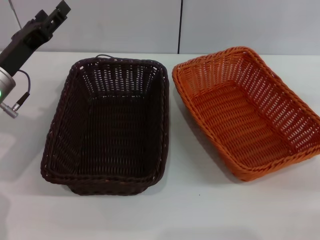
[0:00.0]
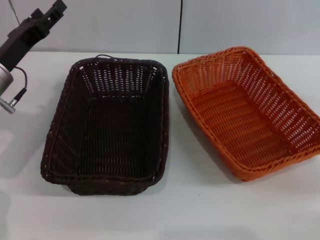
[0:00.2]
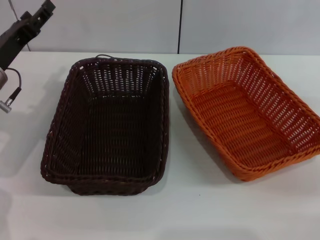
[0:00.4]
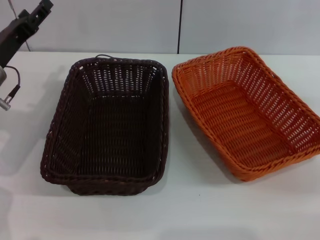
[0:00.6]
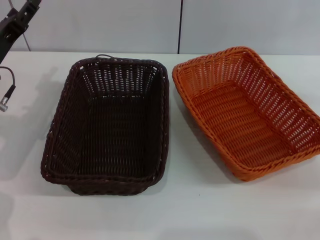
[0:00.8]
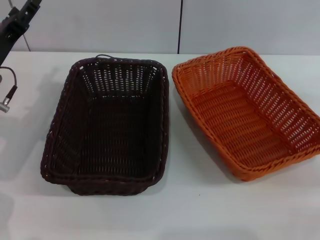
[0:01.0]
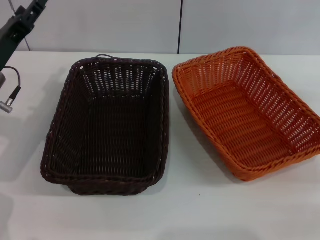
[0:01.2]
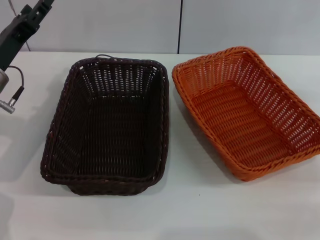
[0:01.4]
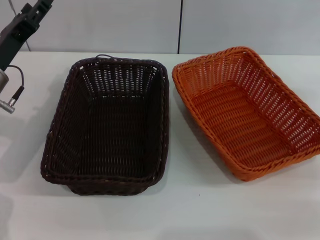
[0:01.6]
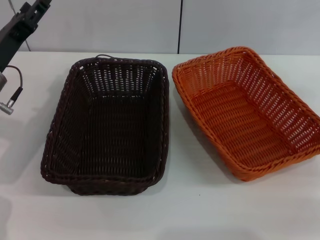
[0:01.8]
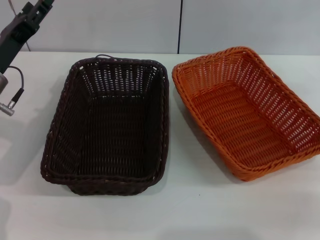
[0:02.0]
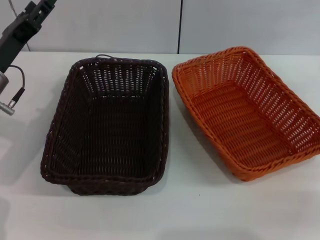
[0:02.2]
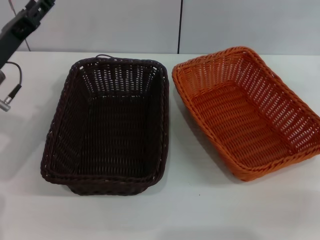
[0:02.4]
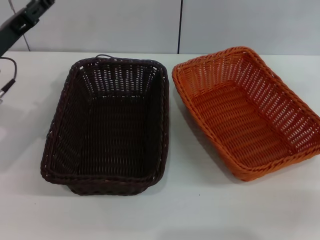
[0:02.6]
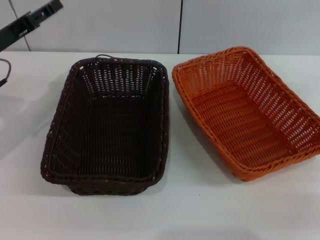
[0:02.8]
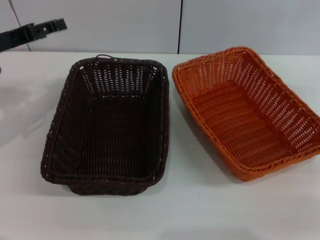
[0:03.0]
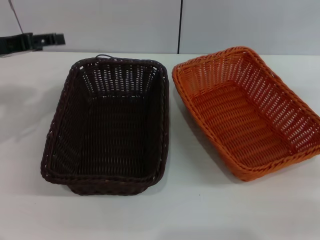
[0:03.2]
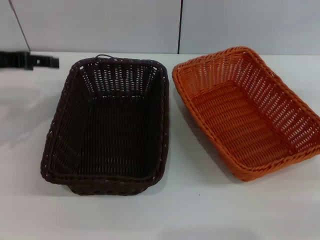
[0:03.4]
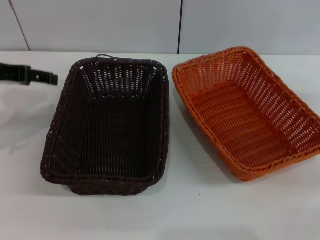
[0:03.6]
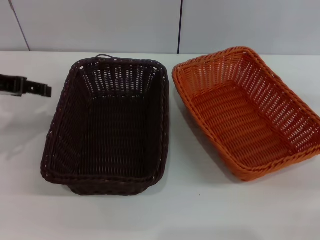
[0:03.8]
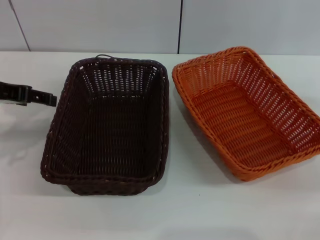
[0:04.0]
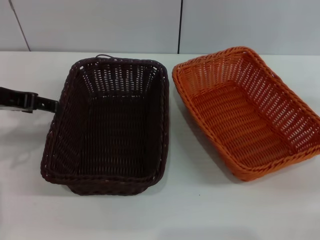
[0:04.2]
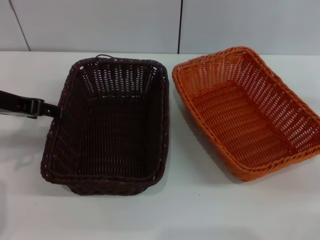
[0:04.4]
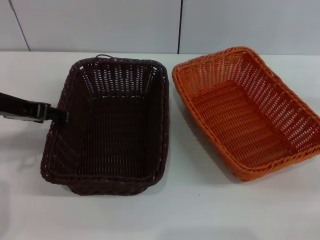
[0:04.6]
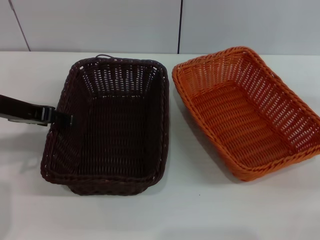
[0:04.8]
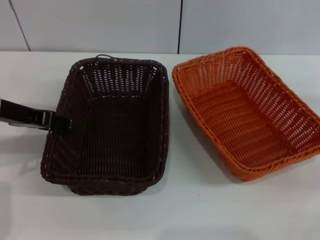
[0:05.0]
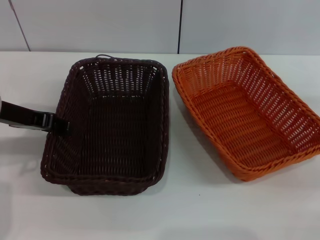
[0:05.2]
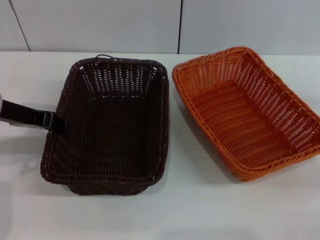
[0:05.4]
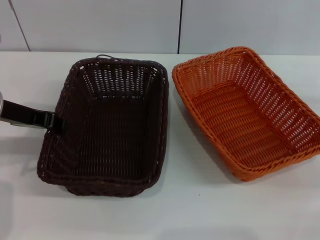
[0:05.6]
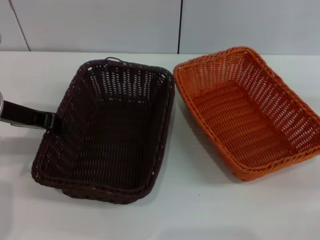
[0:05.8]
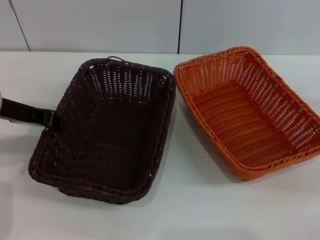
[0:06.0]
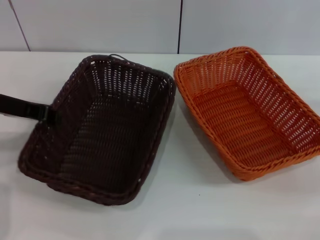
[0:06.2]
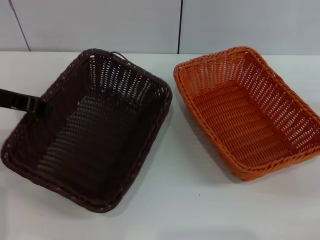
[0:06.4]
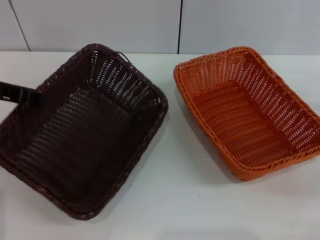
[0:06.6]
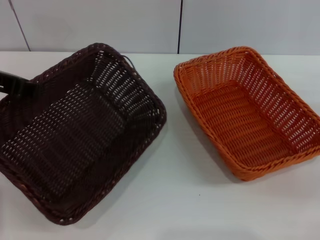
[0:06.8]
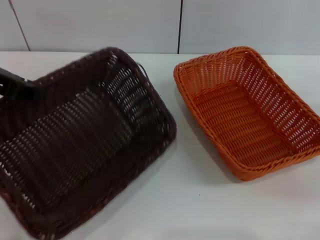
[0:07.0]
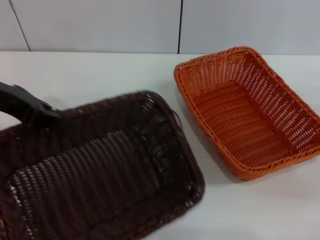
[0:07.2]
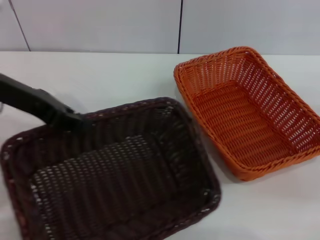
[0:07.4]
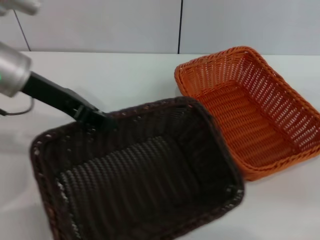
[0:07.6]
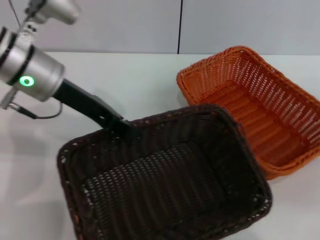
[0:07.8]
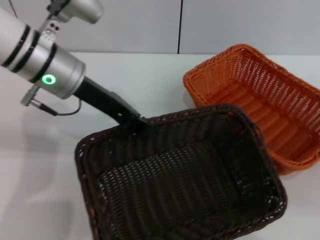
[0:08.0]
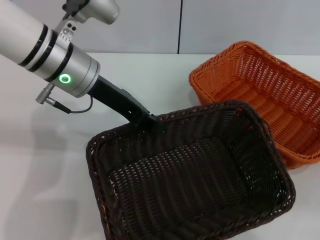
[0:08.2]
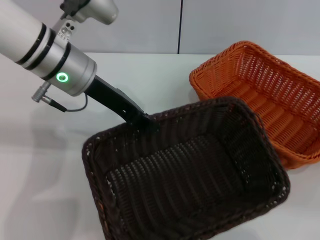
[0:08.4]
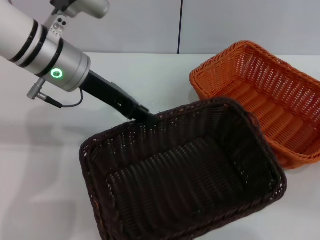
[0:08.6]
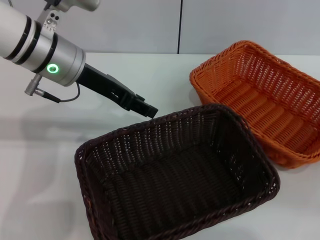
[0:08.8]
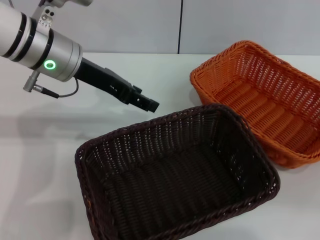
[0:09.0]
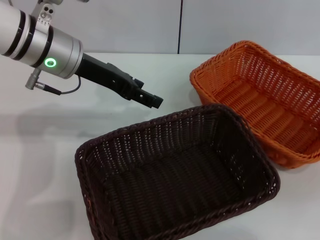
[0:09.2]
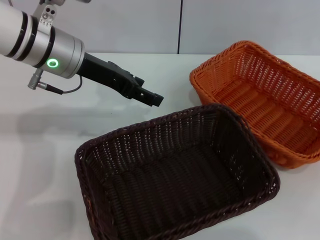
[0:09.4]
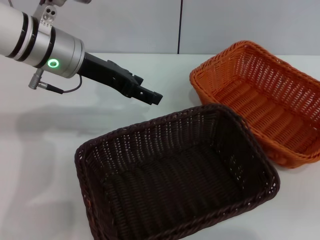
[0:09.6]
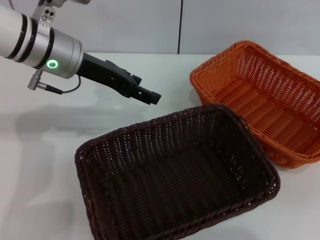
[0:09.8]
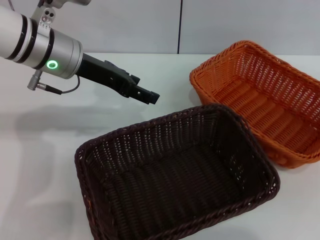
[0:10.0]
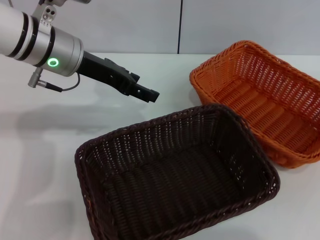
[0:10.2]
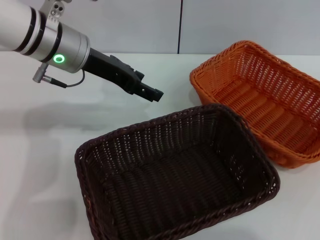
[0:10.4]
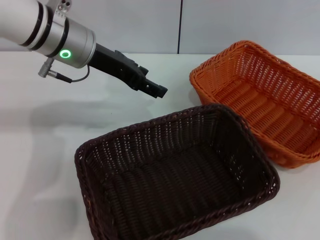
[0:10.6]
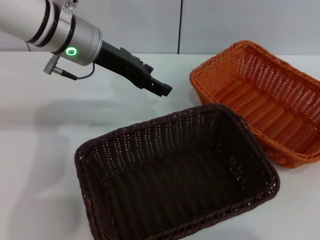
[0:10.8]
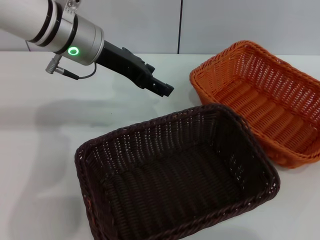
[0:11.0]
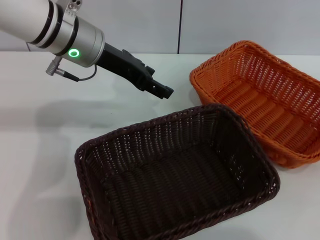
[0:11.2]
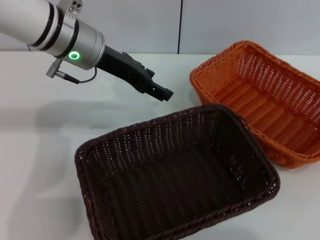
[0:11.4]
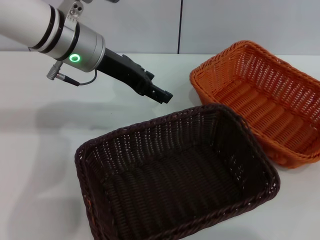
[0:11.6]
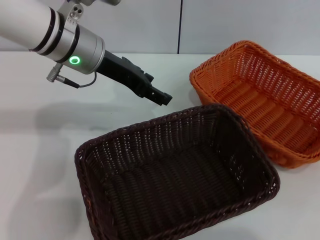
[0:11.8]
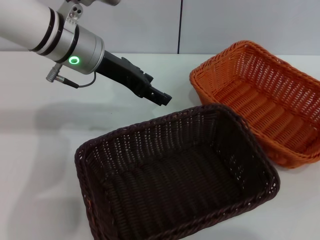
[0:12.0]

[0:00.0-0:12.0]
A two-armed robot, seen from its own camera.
Step, 0:00.0 to 0:06.2: Pick up the dark basket with the left gripper.
Step, 0:06.4 to 0:08.6: Place the dark basket in the center of view with the left gripper.
0:00.0 to 0:01.6: The grippers move only a little.
0:01.6 to 0:03.0: The left gripper is displaced upward by roughly 5 cm.
0:03.0 to 0:04.4: The left gripper ends up roughly 5 cm from where it was.
0:04.4 to 0:06.0: The left gripper closes.
0:06.0 to 0:07.6: The left gripper changes place by approximately 5 cm.
0:07.6 to 0:09.0: The left gripper changes place by roughly 5 cm, and opens.
0:09.0 to 0:10.4: The left gripper opens up. Meanwhile the right gripper travels upward and to the right by some 20 cm.
0:10.4 to 0:12.0: The right gripper moves downward, approximately 10 cm.

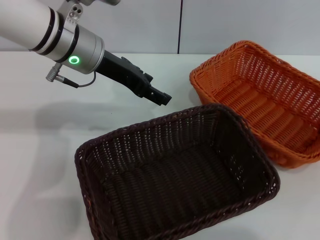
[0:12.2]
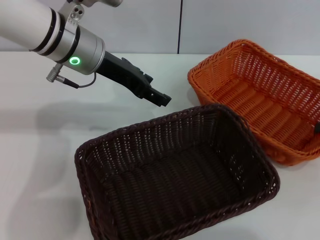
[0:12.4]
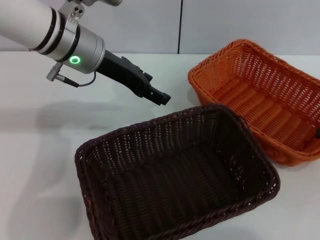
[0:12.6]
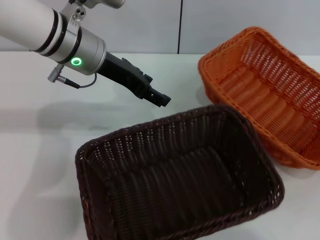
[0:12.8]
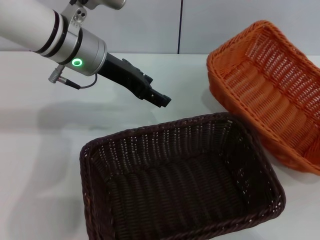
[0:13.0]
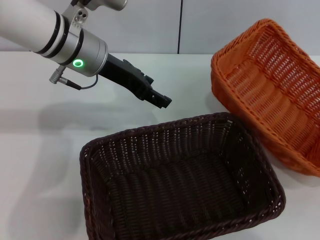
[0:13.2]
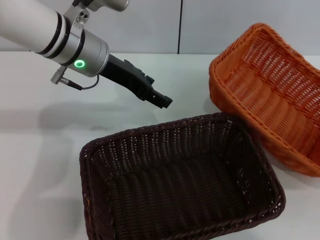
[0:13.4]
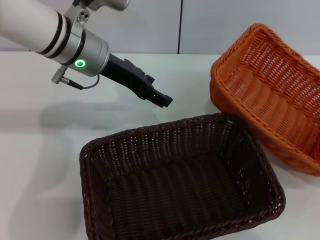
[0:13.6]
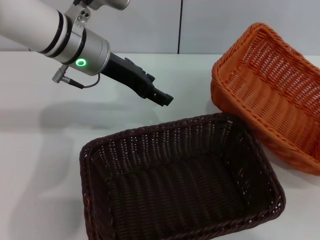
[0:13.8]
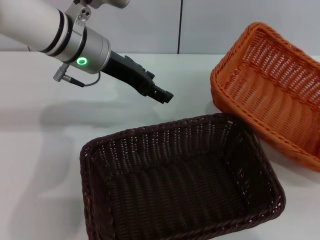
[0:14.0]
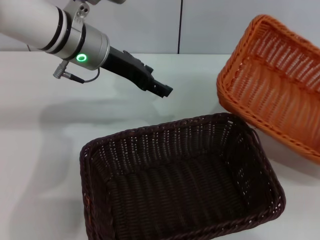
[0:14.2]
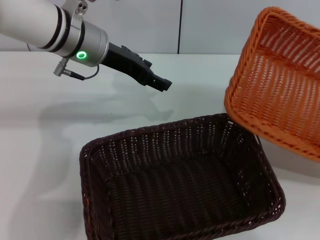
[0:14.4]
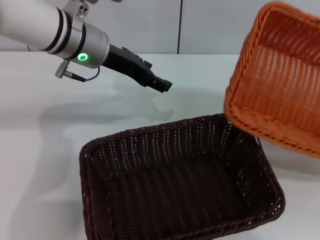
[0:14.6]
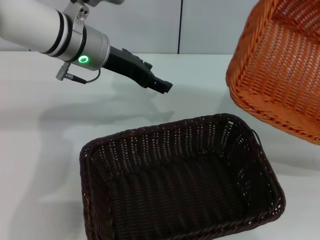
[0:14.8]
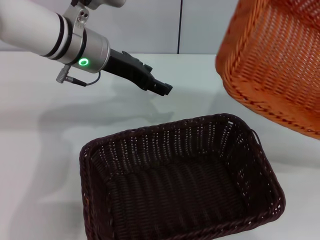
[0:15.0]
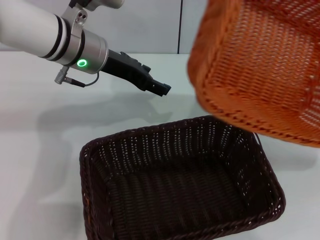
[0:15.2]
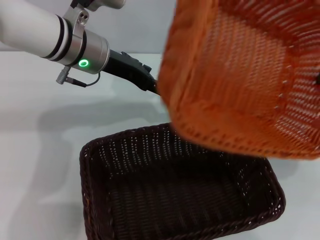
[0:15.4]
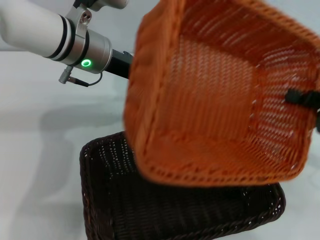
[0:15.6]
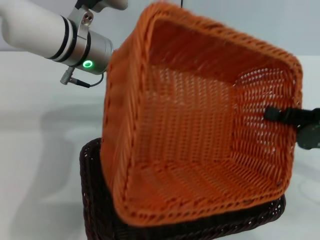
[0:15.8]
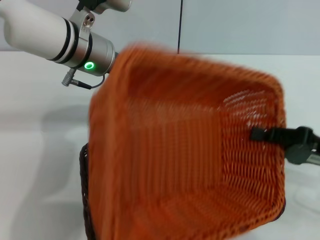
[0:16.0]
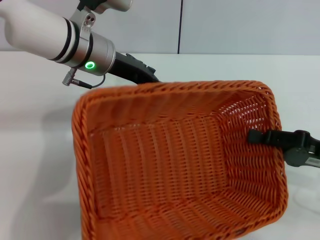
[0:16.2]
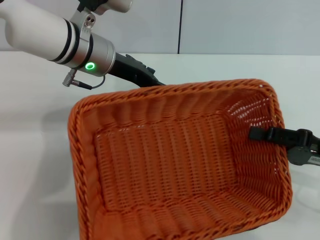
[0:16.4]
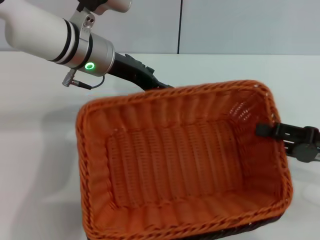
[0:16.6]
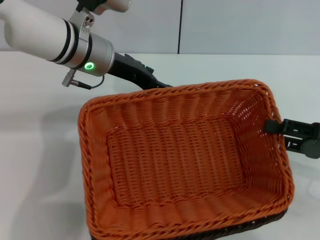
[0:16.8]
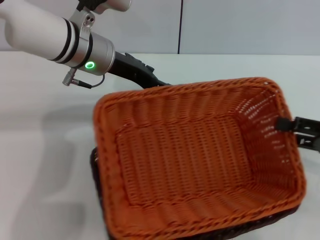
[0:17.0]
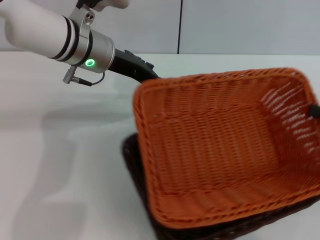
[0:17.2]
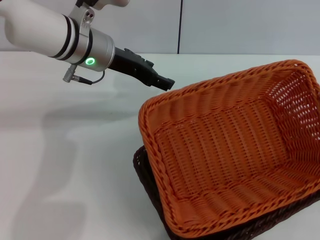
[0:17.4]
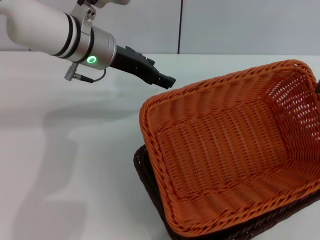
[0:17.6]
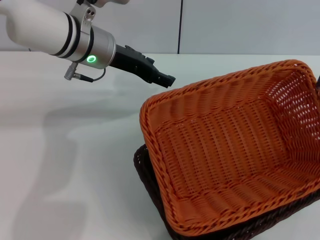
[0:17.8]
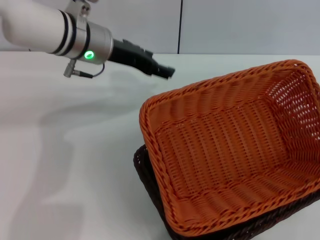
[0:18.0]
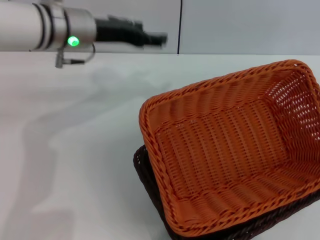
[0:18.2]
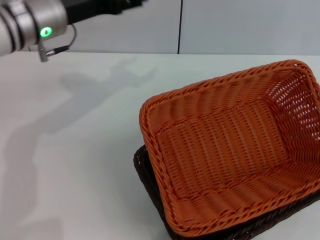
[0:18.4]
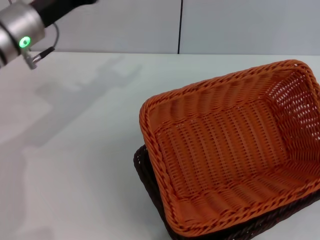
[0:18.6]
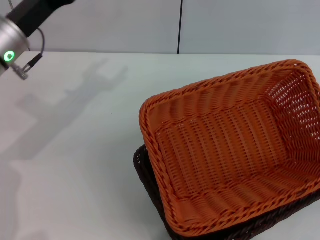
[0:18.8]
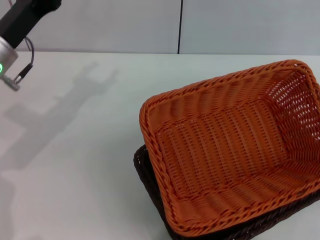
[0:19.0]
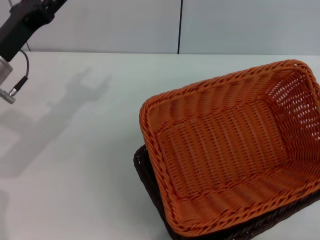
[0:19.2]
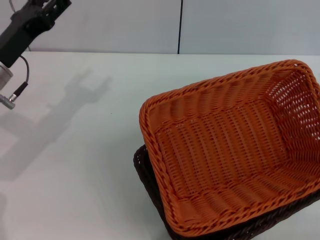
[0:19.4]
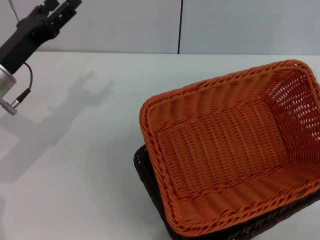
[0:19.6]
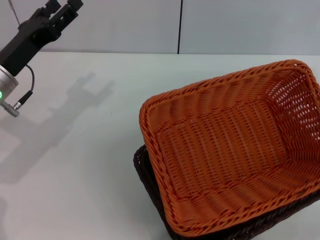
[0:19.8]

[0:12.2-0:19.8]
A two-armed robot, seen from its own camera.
Step, 0:13.4 to 0:17.6: Place the light basket on the dark basket with the right gripper.
0:12.2 to 0:13.8: The right gripper closes its fingers.
0:13.8 to 0:15.2: The right gripper shifts by some 5 cm.
0:15.2 to 0:16.8: The right gripper goes roughly 5 cm to the left, and opens up.
0:16.8 to 0:18.2: The right gripper travels to the right by about 10 cm.
0:18.2 to 0:19.8: The right gripper shifts about 10 cm to the left and forward; the left gripper goes roughly 15 cm to the left, backward and downward.
